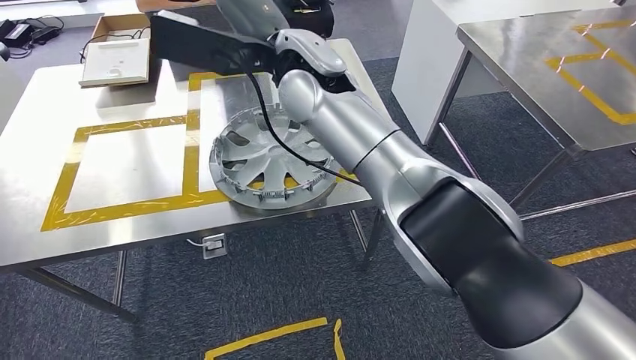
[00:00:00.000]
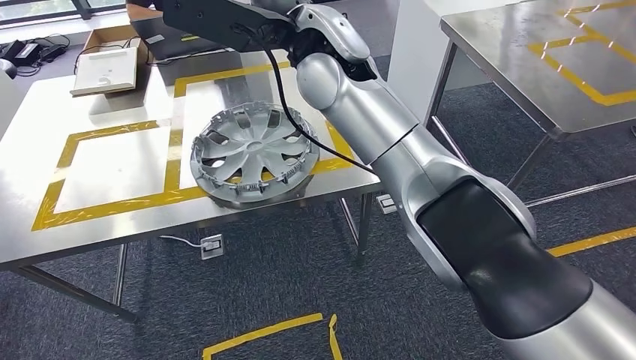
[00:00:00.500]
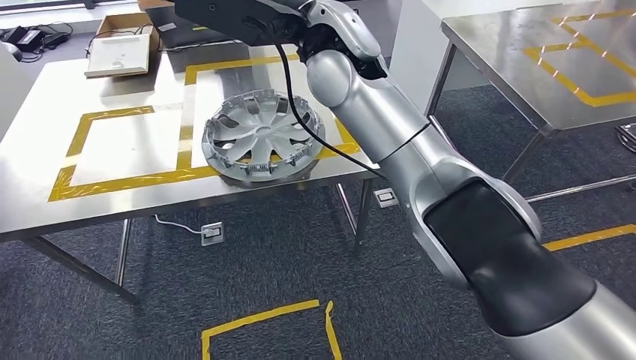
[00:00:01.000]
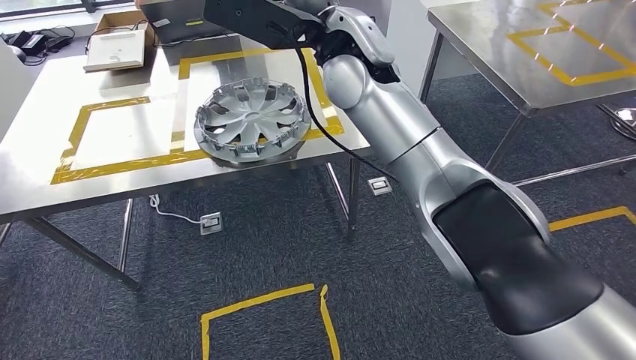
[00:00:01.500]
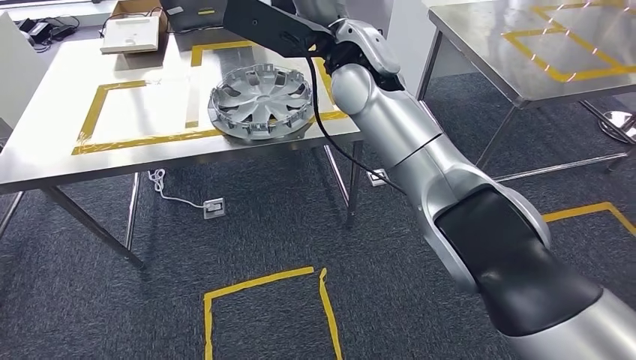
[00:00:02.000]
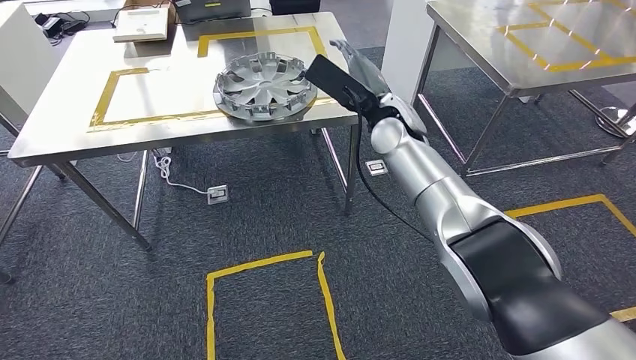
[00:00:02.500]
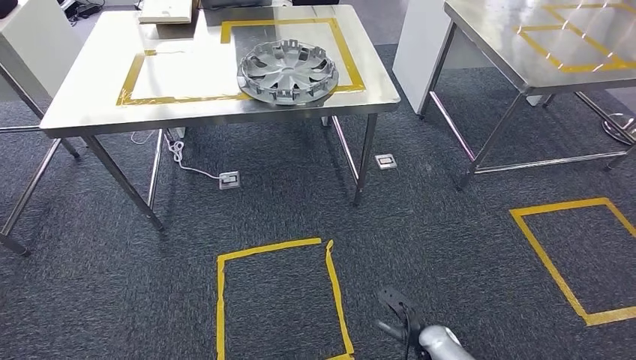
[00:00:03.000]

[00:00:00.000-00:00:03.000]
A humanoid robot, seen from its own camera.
Step, 00:00:01.000 to 00:00:03.000: Return to the initial position at the workbench.
